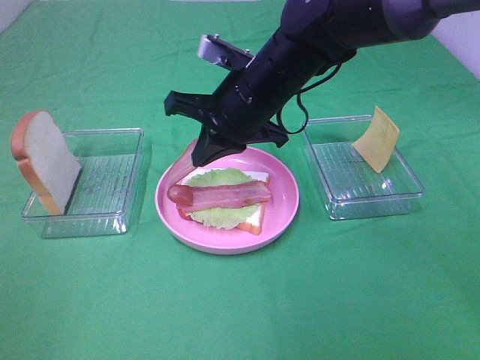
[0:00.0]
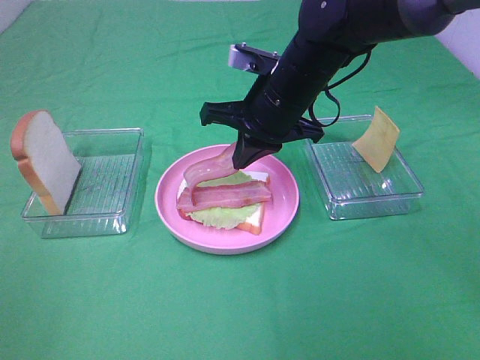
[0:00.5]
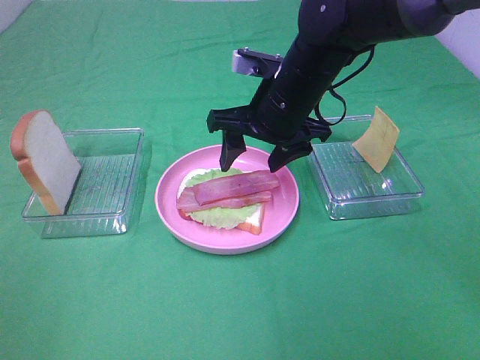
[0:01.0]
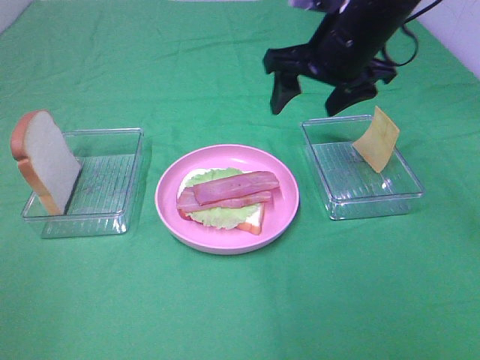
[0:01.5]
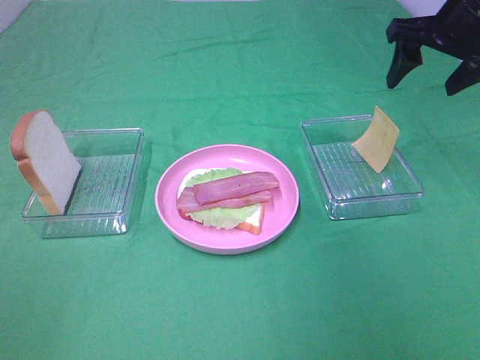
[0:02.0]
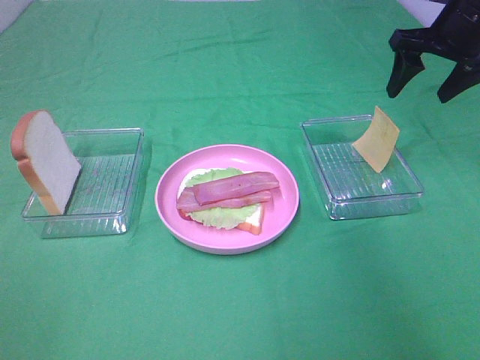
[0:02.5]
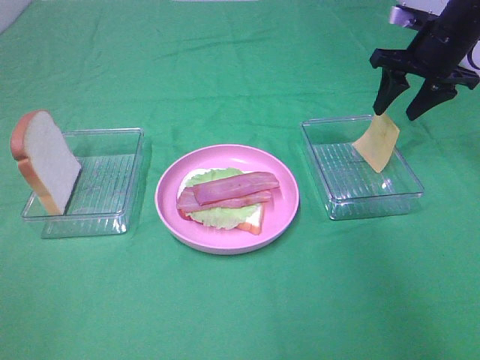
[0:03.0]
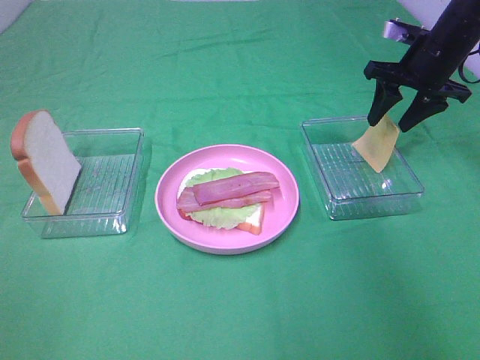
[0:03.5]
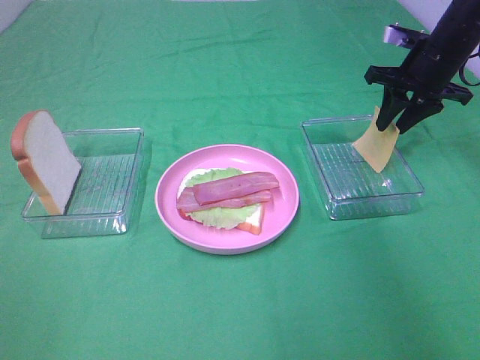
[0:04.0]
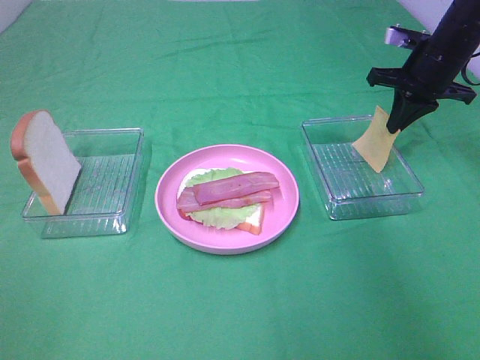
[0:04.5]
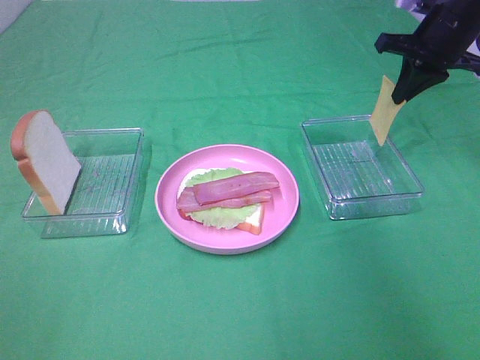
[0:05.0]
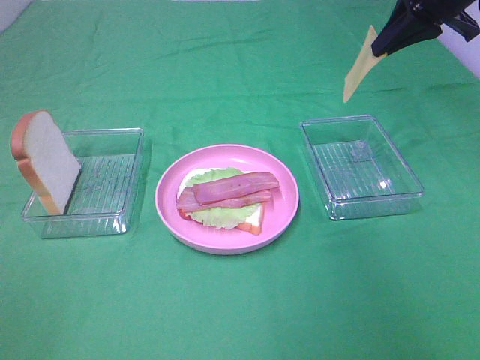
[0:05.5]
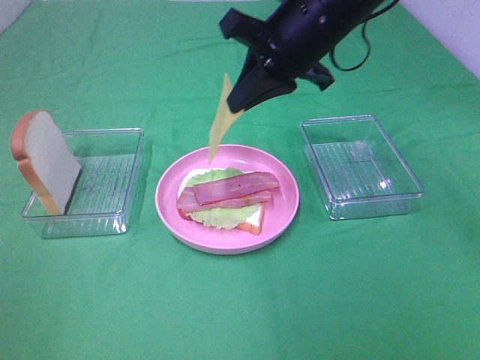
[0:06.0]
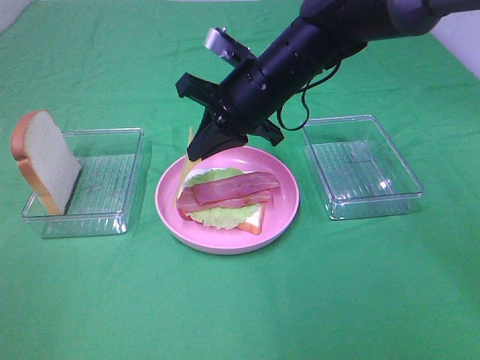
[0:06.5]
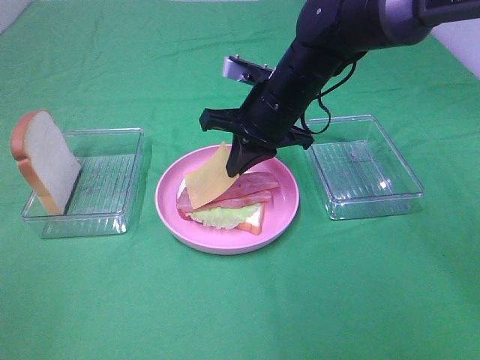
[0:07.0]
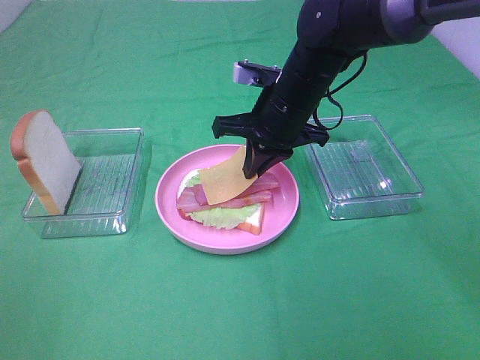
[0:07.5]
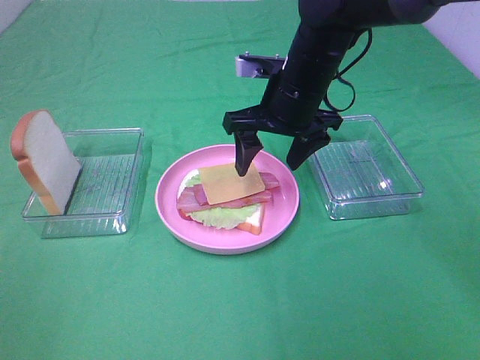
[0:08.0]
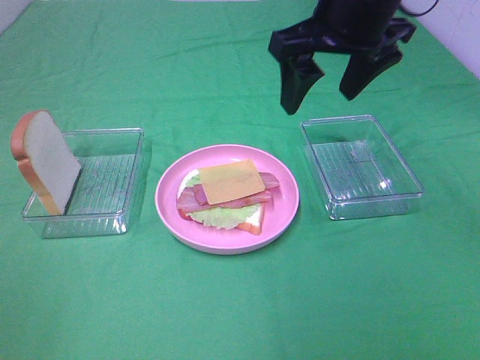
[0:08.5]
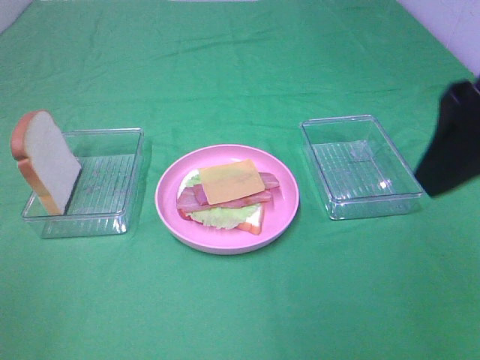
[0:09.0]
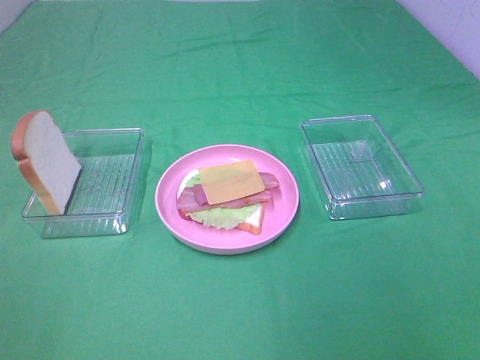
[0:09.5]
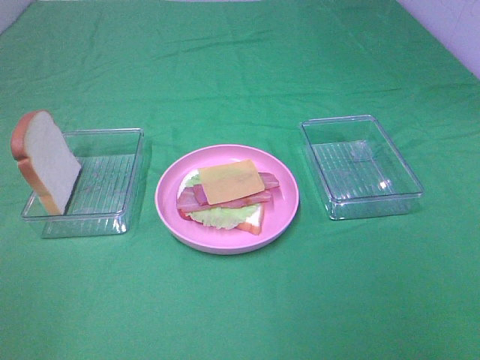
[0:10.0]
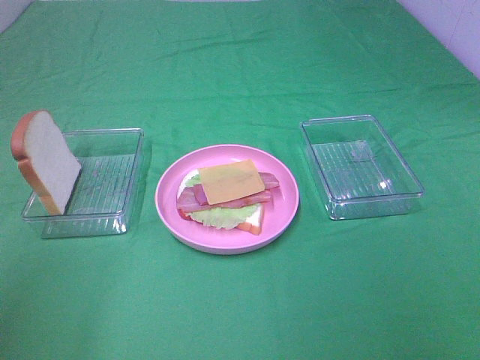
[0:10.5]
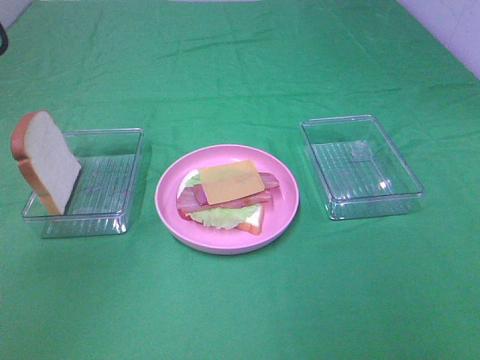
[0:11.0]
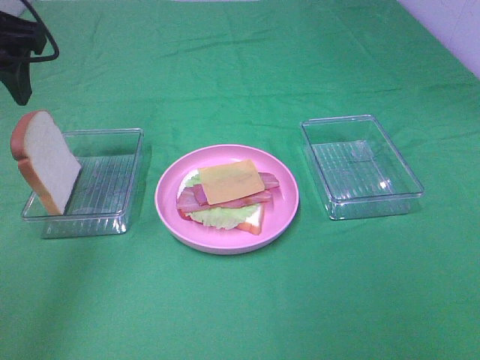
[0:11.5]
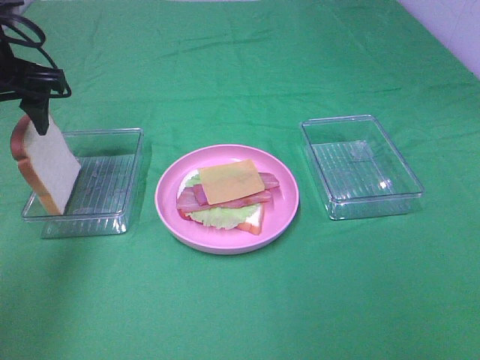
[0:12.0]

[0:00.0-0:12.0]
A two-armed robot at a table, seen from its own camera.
Task of the whole recording: Make sandwiches.
Step, 0:01.5 to 0:04.5: Right hand:grab the cheese slice.
Step, 0:05.0 to 0:08.0: Right hand:place the cheese slice on top of the bacon.
0:00.0 to 0:02.0: The right gripper is displaced to the right by some 25 cm, and opens its fingers.
0:02.0 to 0:04.0: The right gripper travels downward and forward by approximately 10 cm, and closes its fingers.
0:04.0 to 0:06.0: The right gripper is displaced to the left and backward by about 25 cm, and closes.
0:06.0 to 0:08.0: The right gripper shifts some 5 cm downward, and opens up.
0:08.0 to 0:10.0: The right gripper is displaced backward and to the right by about 40 cm.
0:10.0 to 0:12.0: The left gripper travels forward by about 35 cm.

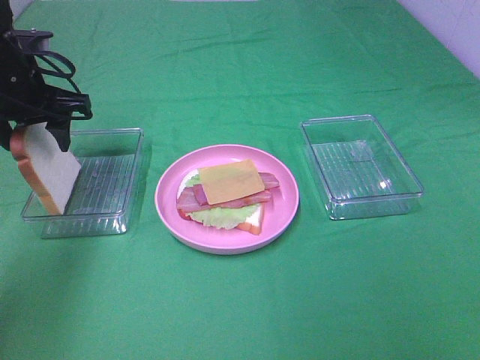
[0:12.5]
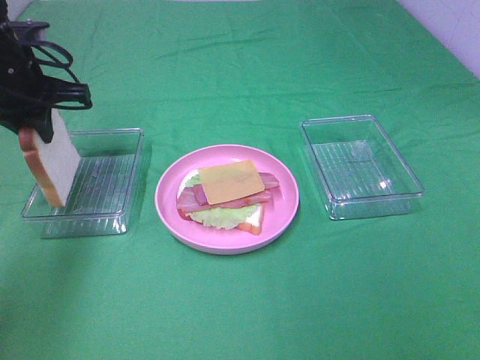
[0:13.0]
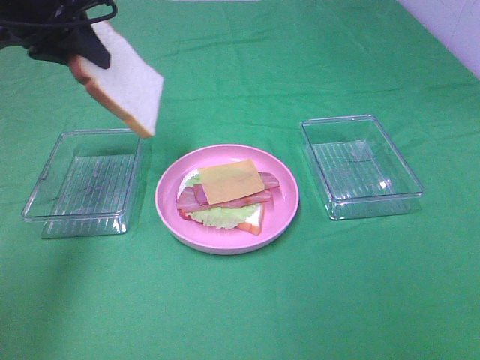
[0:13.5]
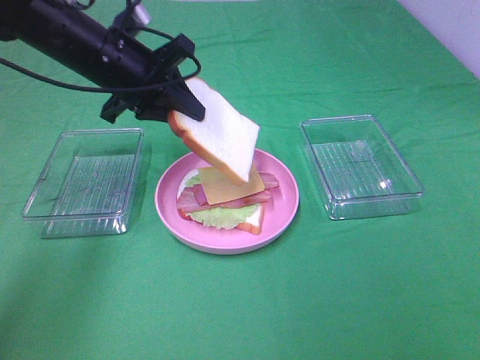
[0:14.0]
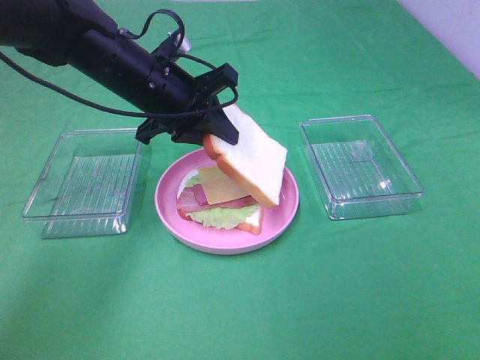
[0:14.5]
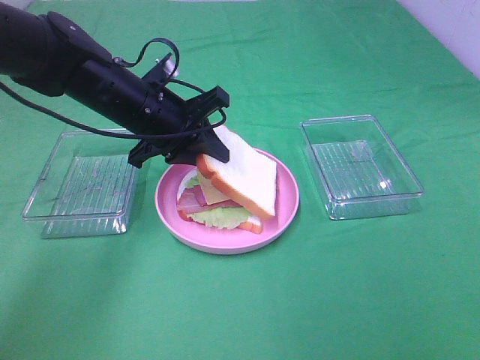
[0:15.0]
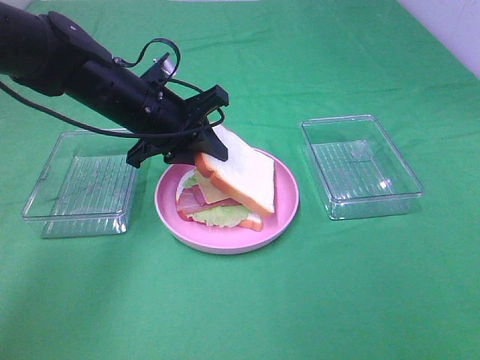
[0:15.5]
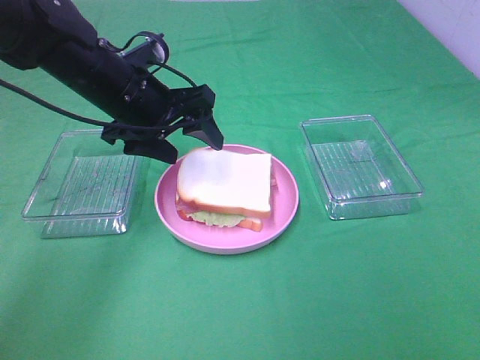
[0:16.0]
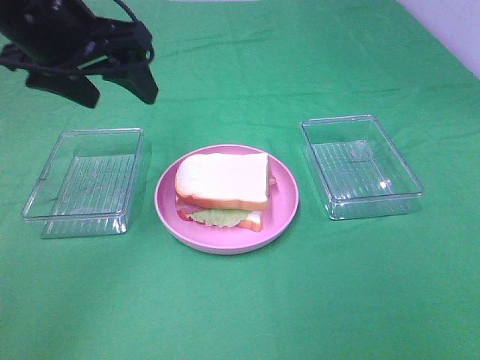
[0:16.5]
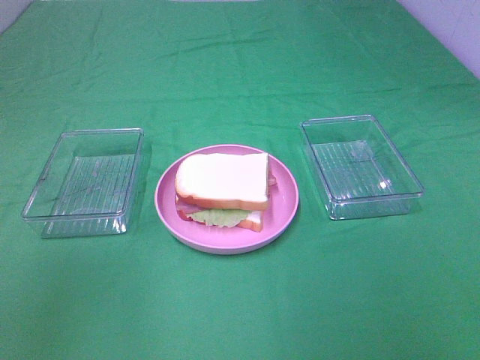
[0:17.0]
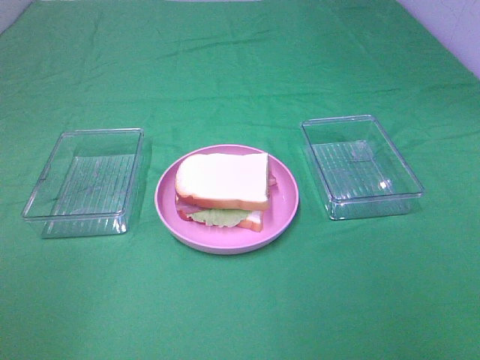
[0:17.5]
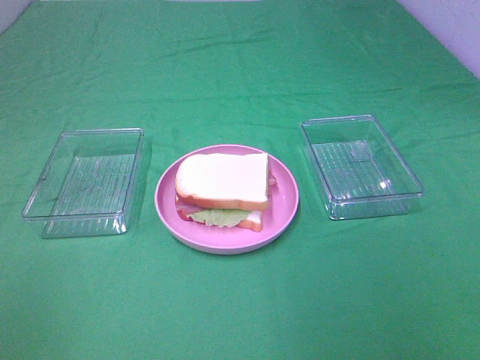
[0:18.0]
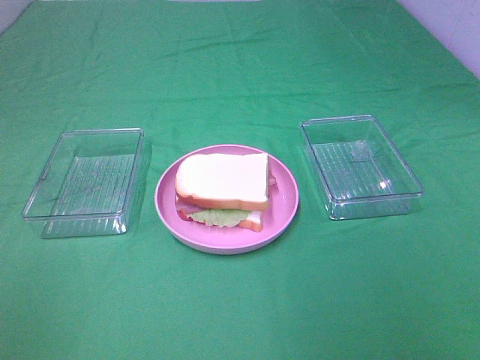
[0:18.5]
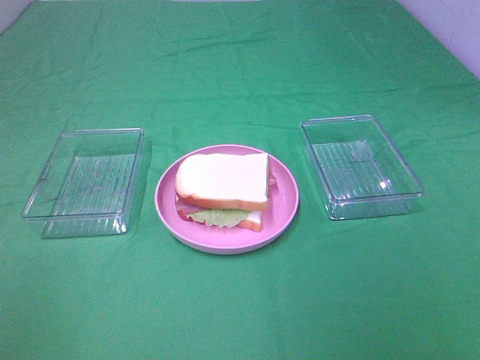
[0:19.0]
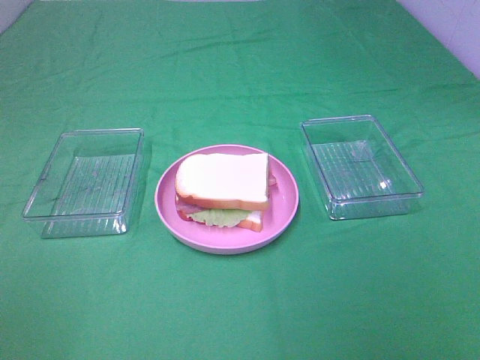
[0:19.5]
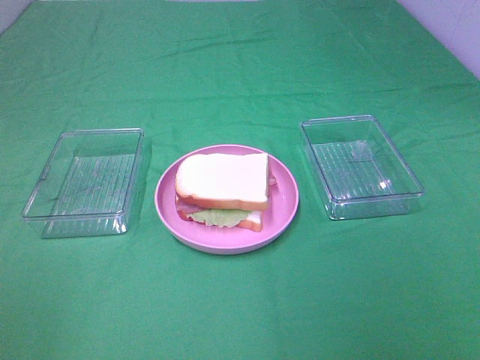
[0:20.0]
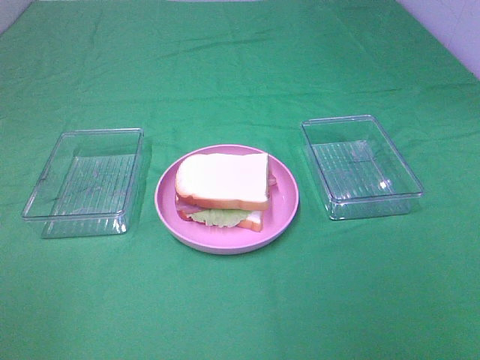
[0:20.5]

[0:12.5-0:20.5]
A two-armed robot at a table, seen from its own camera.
Task of the whole recording: Make sandwiches.
Step, 0:13.0 to 0:16.0: Left hand:place bacon on lettuce slice.
0:12.5 to 0:14.5: The left gripper travels to the right by roughly 15 cm, and closes its fingers.
0:14.5 to 0:16.5: The left gripper moves upward, backward and to the left, about 15 cm, and opens its fingers.
0:16.5 to 0:18.5: The left gripper heads backward and to the left, covering roughly 35 cm.

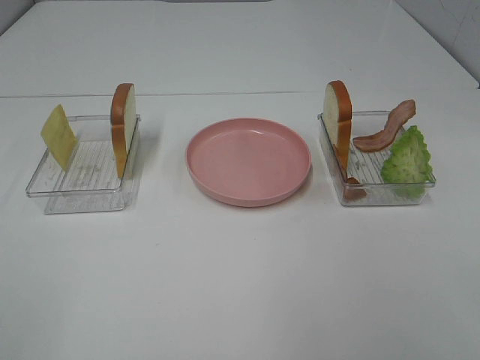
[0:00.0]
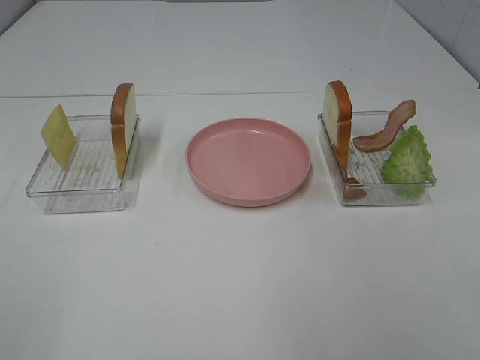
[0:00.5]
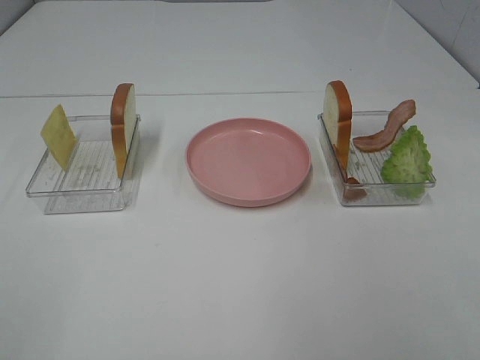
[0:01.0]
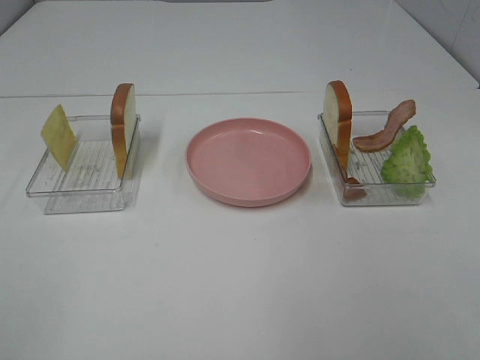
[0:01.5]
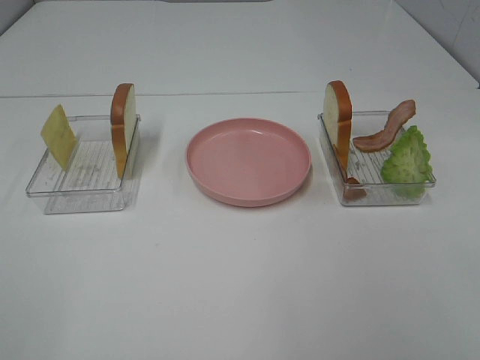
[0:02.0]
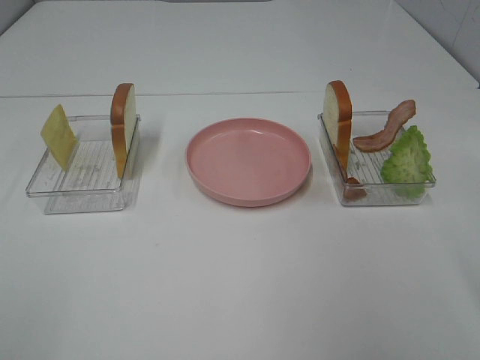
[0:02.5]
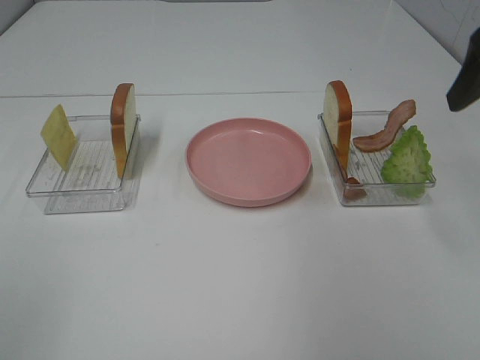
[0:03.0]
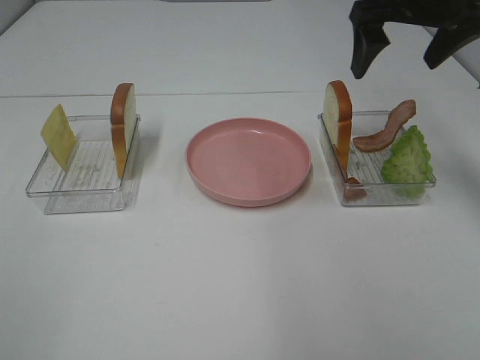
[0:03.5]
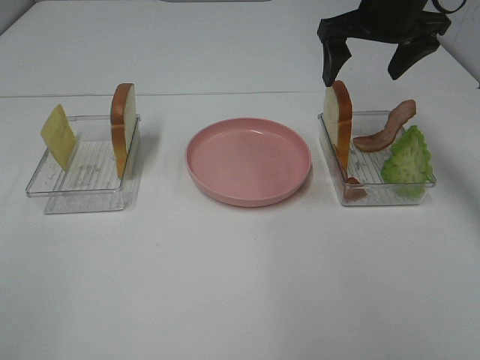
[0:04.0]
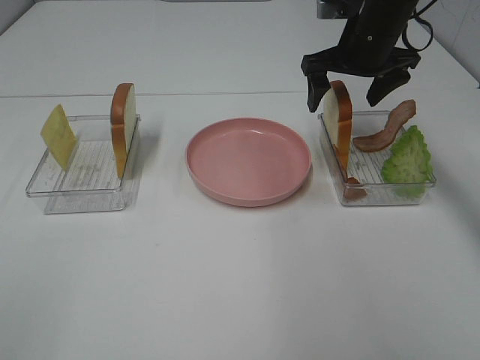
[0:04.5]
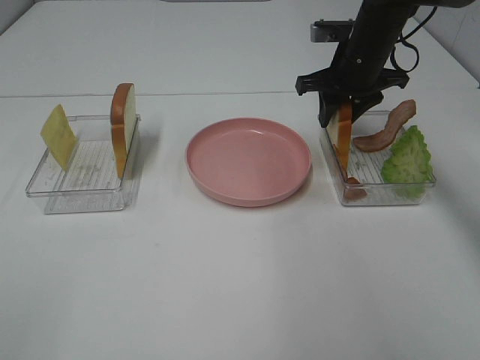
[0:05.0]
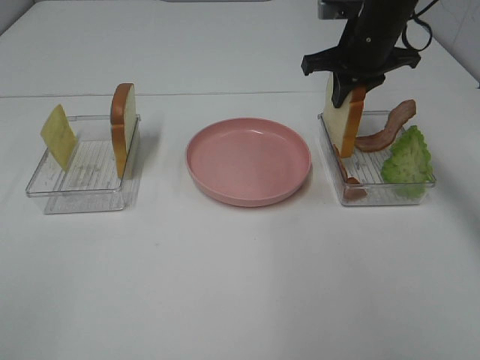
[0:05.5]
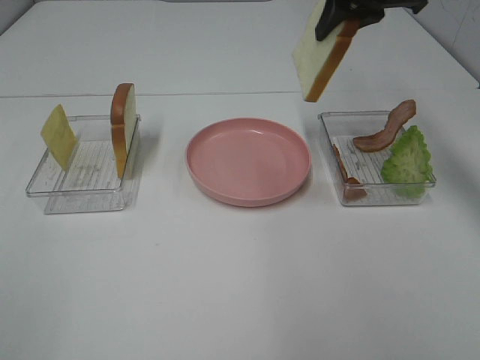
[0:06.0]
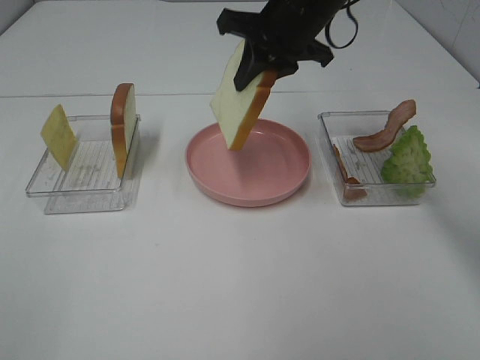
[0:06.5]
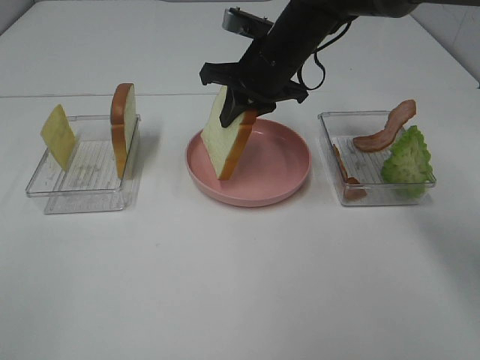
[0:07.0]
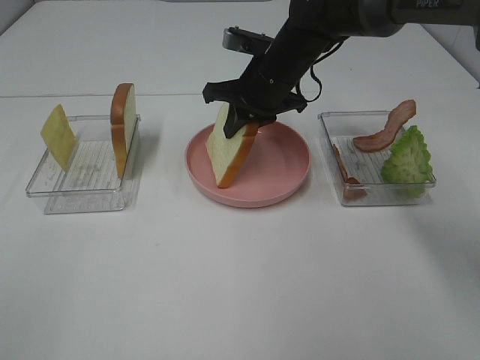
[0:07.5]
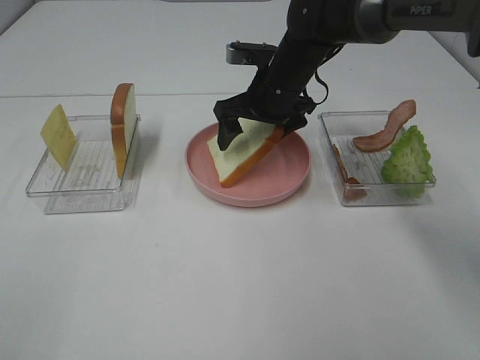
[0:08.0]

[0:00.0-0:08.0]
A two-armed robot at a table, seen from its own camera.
Task of the whole recording: Make sandwiches.
Step, 0:00.0 to 0:05.0: Right hand:grab the bread slice.
0:02.0 to 0:04.0: The right gripper travels forward by about 40 cm.
0:04.0 to 0:06.0: The right gripper reaches approximately 10 cm downward, then returns, and closes up.
0:06.0 to 0:08.0: The right gripper heads downward and to the left, covering some 20 cm, and opens.
